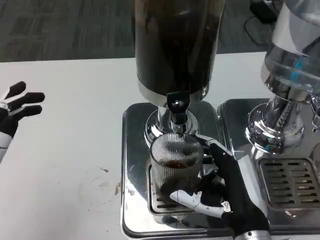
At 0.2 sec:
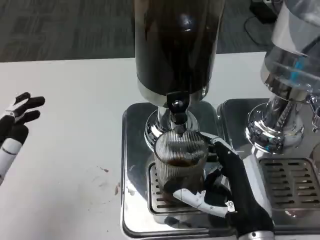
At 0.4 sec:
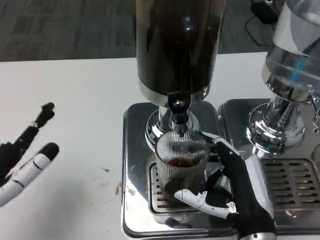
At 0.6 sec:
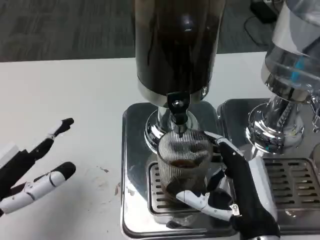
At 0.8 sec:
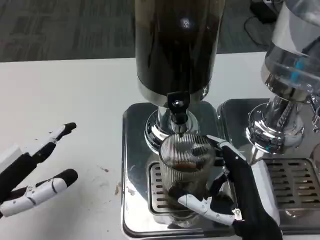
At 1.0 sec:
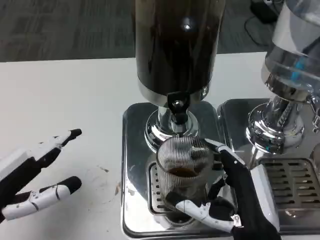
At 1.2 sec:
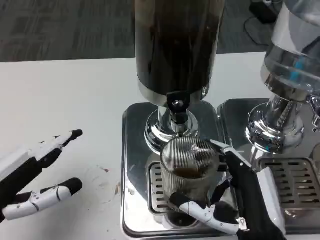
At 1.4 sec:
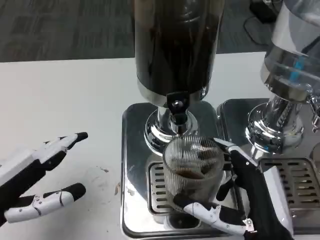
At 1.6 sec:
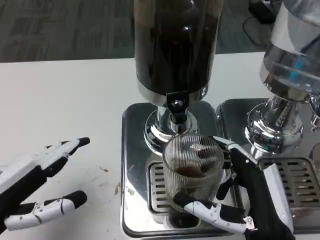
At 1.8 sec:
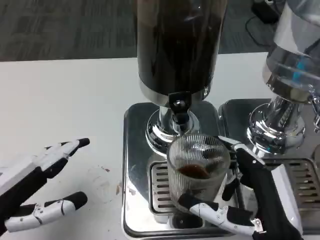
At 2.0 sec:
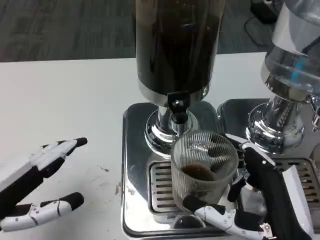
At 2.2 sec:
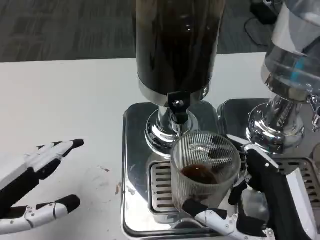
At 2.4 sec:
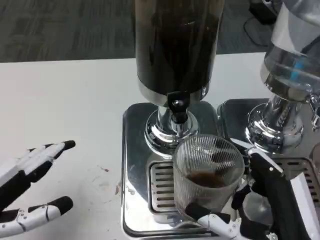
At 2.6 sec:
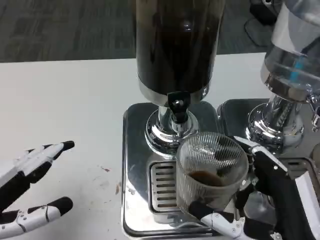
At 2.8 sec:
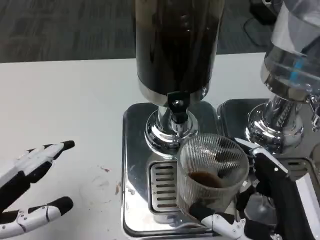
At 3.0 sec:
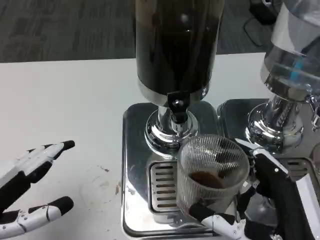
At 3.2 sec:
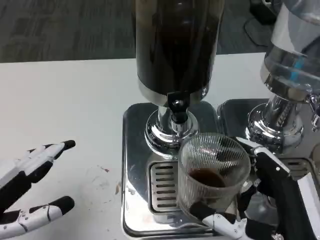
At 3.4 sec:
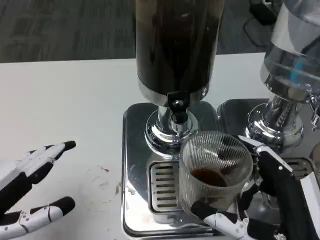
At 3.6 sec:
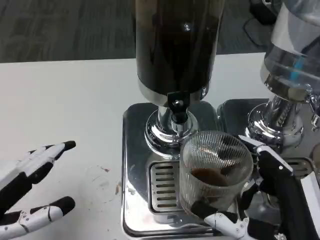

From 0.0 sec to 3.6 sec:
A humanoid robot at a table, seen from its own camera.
Task of the whole recording: Grasp the cup under the faucet to collect the drink, then remove the cup.
From 0.0 sec to 1.8 sec: The right hand moves approximately 5 cm.

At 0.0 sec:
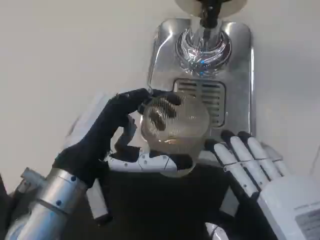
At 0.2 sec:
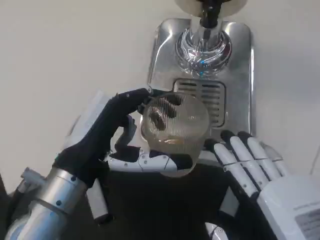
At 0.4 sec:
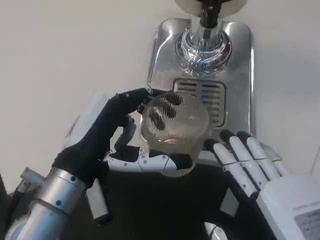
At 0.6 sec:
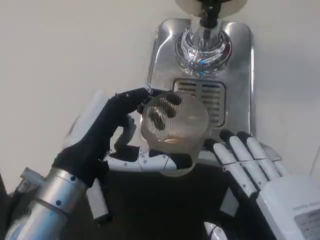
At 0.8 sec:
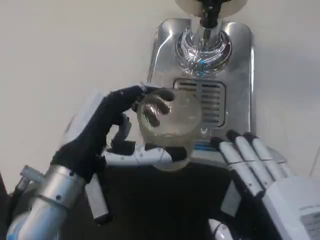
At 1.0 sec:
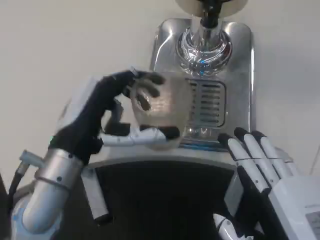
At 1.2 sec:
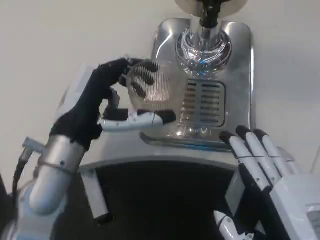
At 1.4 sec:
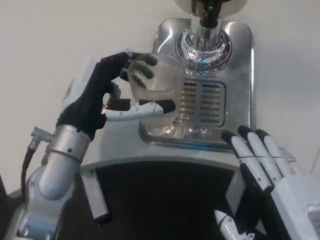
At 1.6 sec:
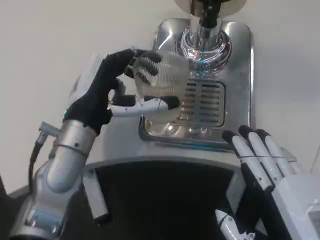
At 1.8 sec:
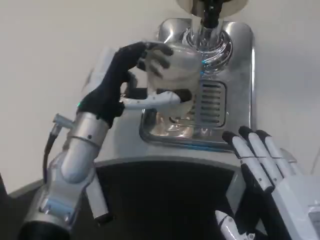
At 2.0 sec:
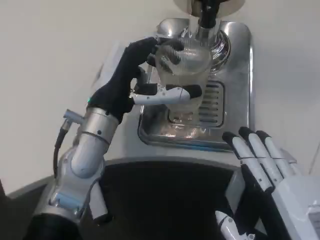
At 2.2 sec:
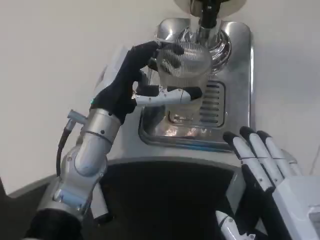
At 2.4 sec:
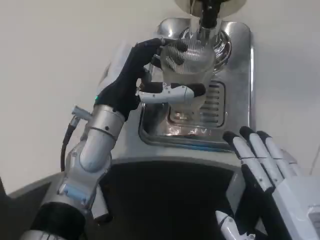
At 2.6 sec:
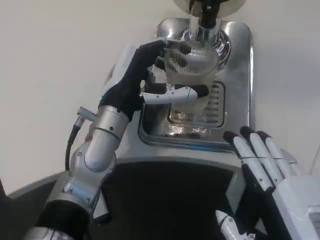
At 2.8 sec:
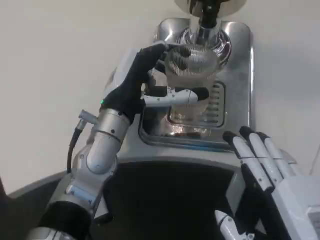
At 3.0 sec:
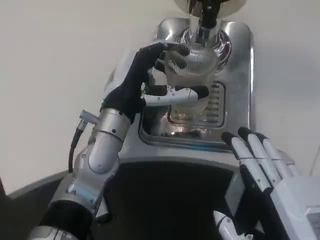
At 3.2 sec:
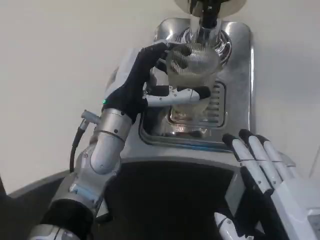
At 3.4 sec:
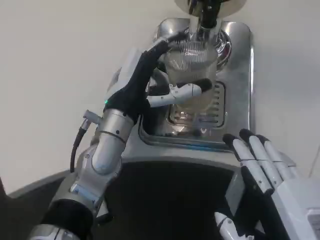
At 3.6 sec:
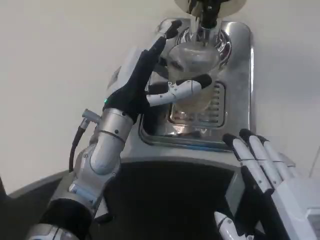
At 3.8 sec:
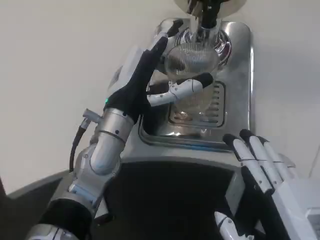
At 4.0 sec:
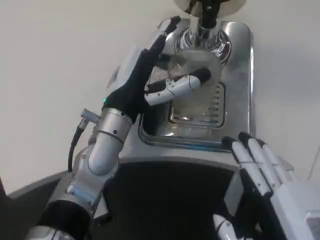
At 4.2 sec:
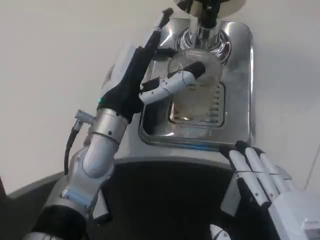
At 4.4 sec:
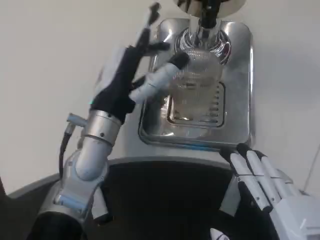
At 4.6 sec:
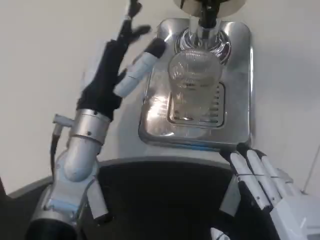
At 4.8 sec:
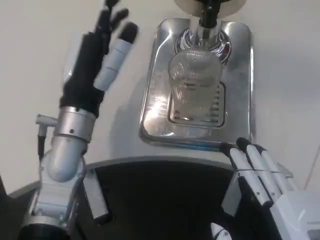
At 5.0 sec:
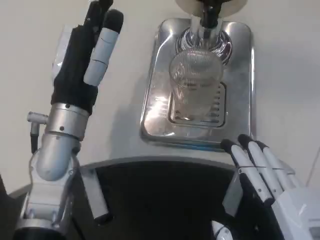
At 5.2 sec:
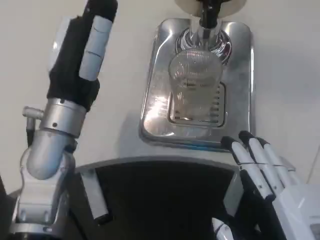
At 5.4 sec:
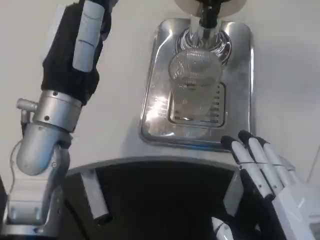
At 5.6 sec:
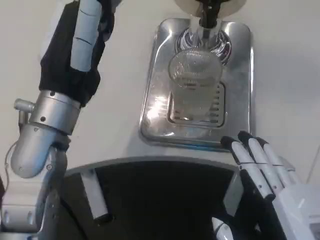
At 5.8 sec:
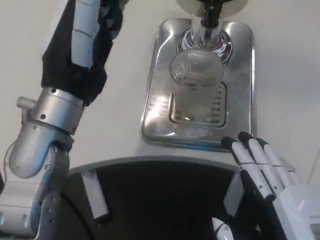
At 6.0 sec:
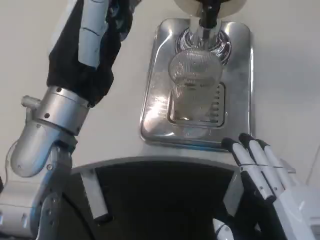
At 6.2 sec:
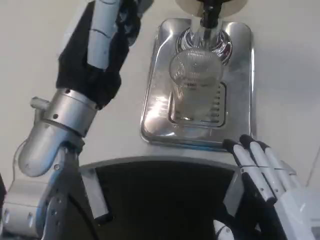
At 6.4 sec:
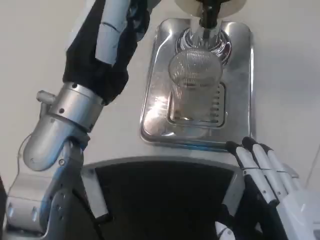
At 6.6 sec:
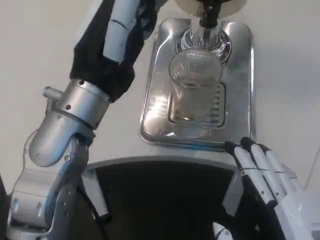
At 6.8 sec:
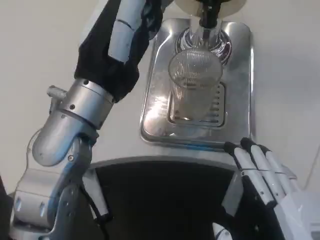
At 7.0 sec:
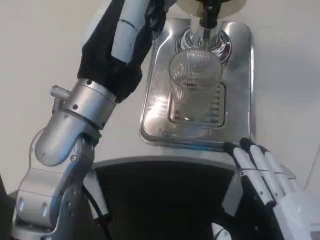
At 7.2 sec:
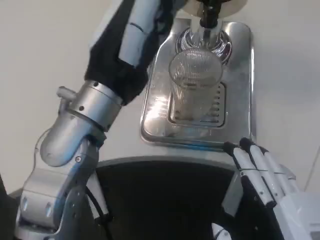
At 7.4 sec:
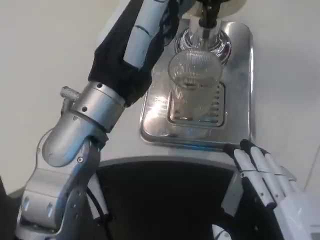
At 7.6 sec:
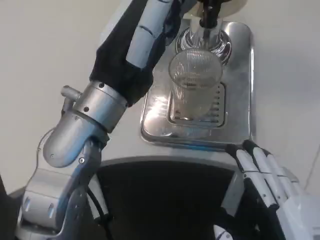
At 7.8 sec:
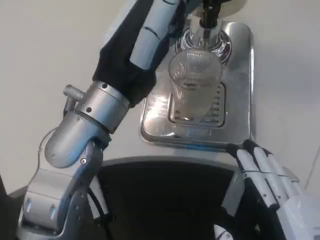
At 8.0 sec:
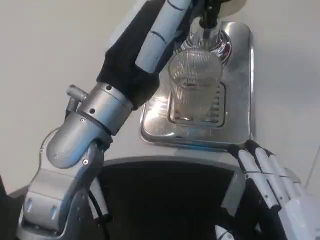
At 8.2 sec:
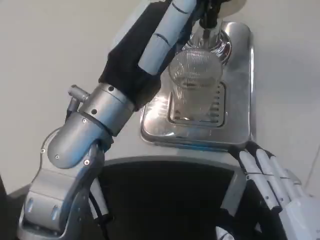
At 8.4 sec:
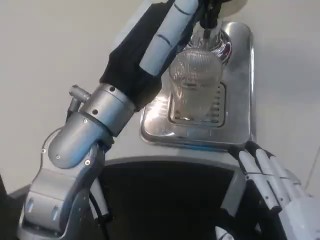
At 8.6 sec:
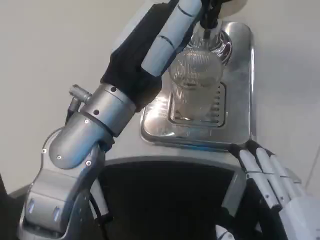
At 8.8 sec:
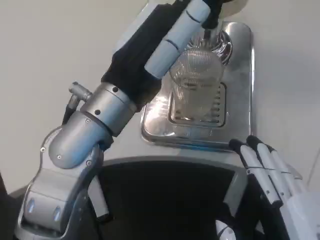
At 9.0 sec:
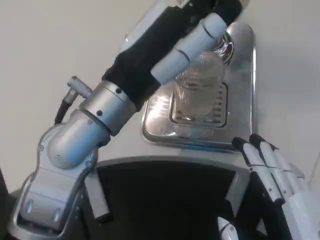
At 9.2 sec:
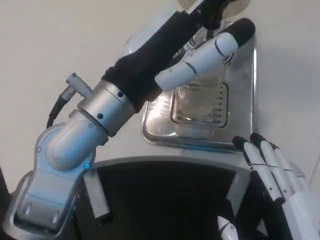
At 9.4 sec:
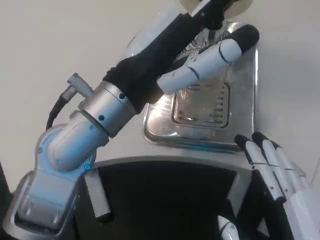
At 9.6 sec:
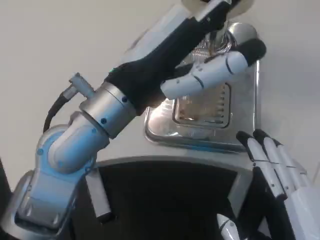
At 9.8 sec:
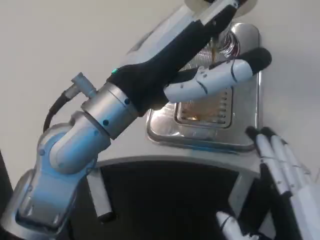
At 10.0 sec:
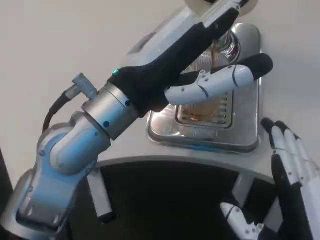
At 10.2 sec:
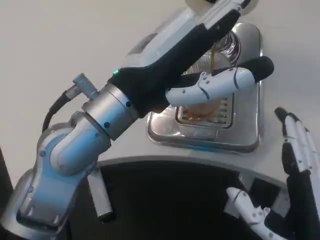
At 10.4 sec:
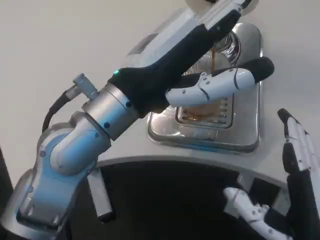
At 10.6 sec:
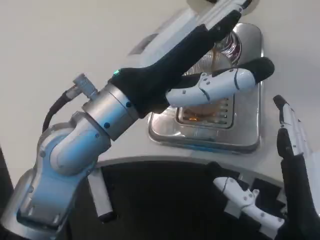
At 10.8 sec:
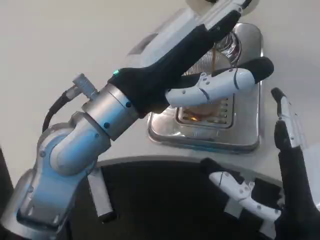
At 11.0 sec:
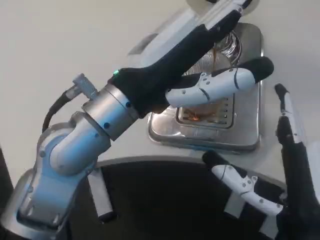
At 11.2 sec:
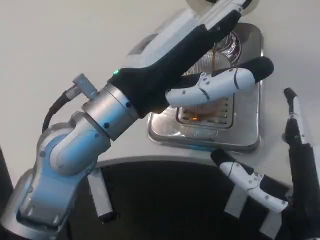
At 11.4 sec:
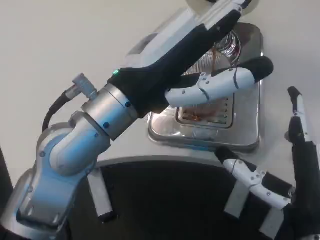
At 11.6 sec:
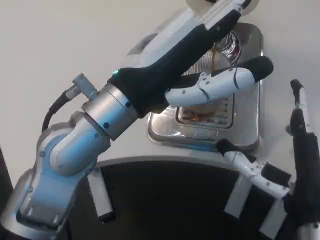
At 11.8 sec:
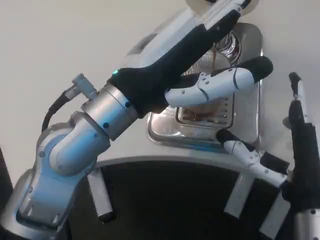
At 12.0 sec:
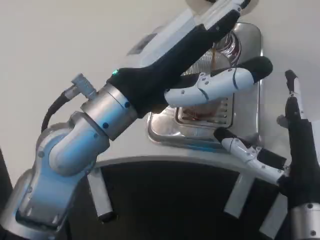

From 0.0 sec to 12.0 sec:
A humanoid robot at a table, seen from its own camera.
Task of the whole recording: Grasp the cup under the faucet to collect the drink, then remove the cup.
From 0.0 sec to 1.6 sec: The left hand travels forward by about 10 cm.
From 1.6 sec to 3.0 sec: The left hand ends up some 5 cm from where it was.
From 3.0 sec to 4.4 sec: The hands make only small movements.
From 4.4 sec to 6.0 sec: The left hand travels upward and backward by some 10 cm.
From 10.4 sec to 12.0 sec: The right hand travels forward by approximately 5 cm.

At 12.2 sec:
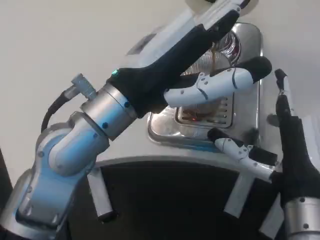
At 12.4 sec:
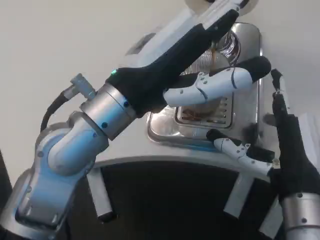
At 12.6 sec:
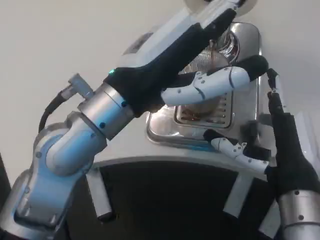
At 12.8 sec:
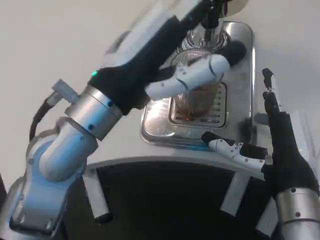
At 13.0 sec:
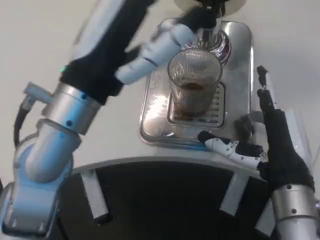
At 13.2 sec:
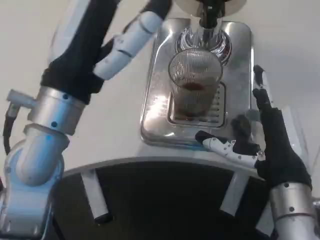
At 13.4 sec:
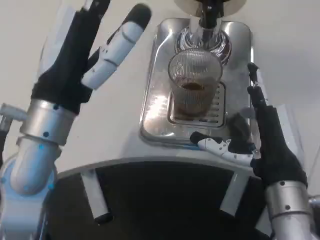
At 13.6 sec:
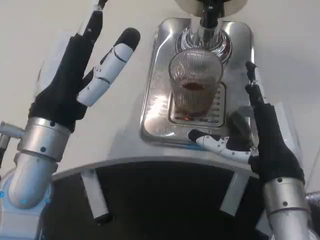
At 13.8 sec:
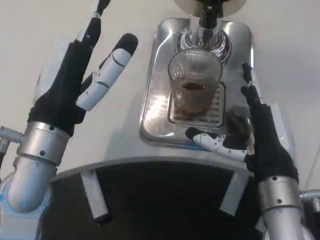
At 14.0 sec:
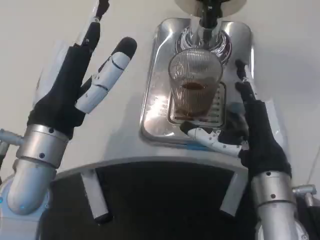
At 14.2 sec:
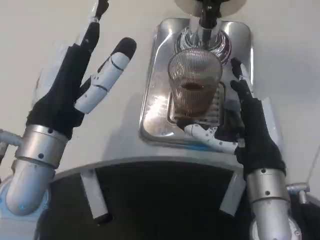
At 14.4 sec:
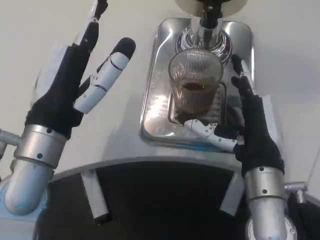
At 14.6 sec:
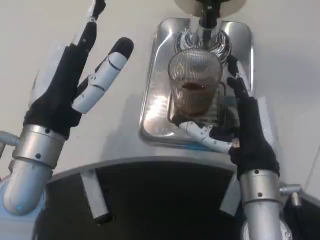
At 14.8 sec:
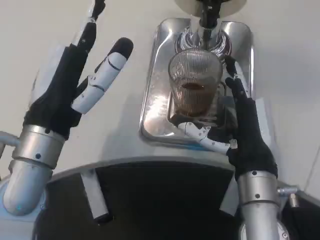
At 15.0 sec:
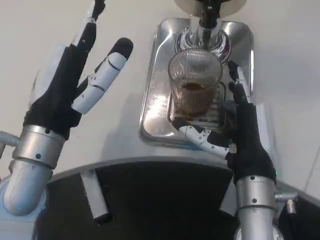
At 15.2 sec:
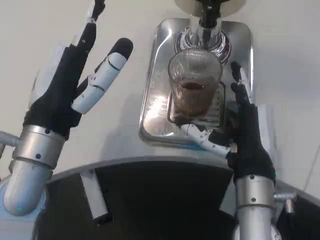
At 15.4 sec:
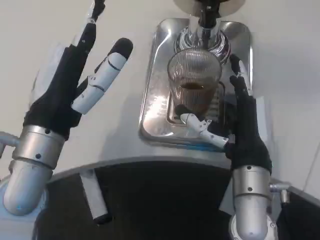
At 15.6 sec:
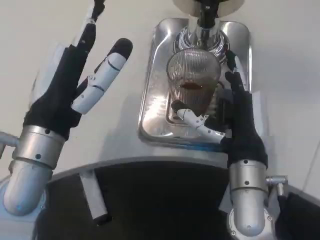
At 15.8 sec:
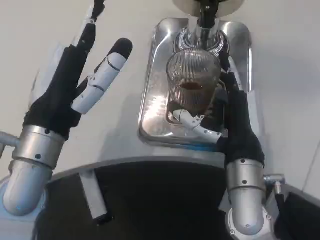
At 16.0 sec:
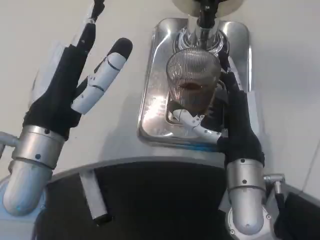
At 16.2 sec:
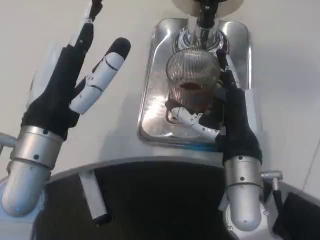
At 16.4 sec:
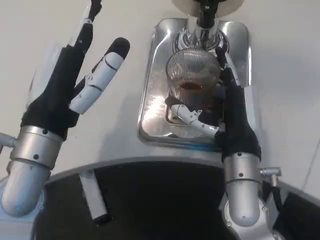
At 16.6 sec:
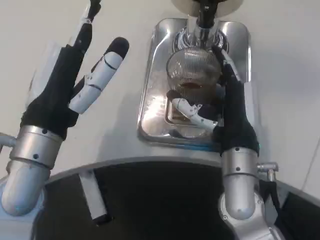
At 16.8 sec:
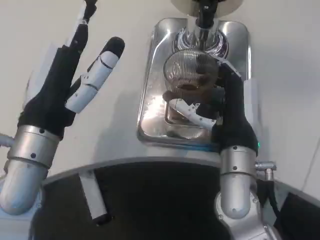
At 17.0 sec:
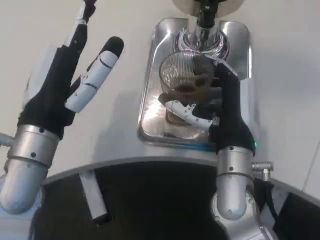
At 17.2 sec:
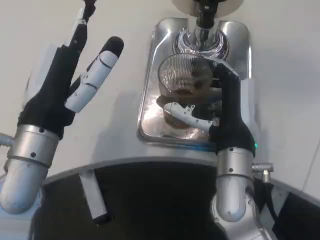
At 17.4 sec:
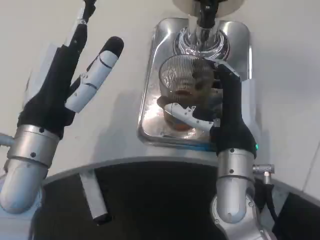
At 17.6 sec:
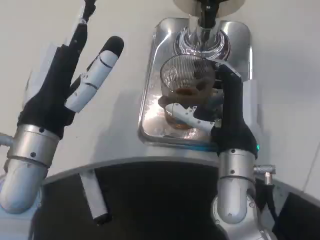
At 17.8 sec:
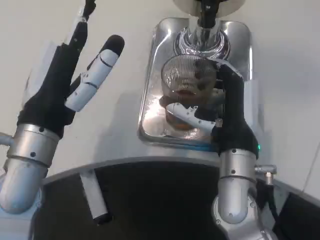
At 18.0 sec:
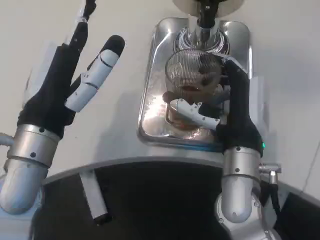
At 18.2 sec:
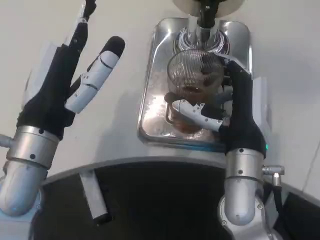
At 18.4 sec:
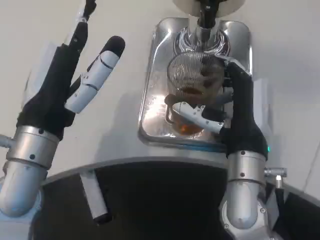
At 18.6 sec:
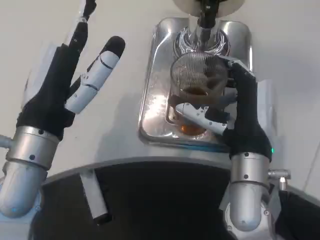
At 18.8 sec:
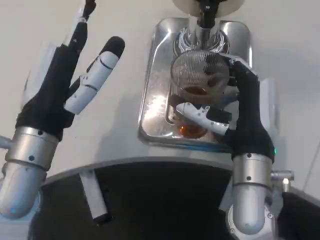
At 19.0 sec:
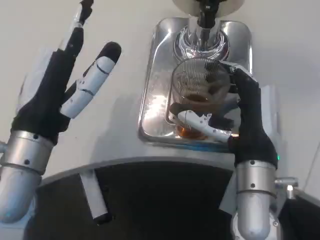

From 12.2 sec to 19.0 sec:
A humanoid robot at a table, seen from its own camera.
Task of the whole recording: Grasp the cup under the faucet to collect the drink, then remove the cup.
From 12.2 sec to 13.6 sec: The left hand goes some 10 cm to the left and downward.
From 15.0 sec to 17.6 sec: The hands stay close to where they were, moving slightly.
